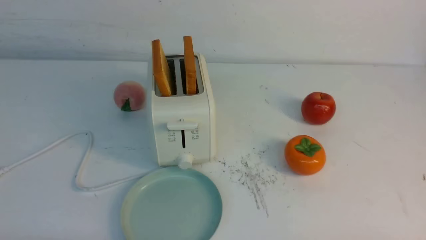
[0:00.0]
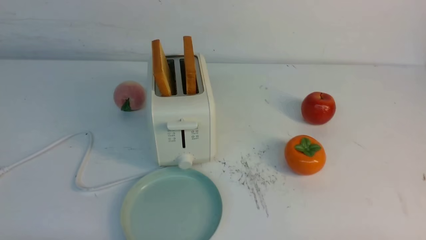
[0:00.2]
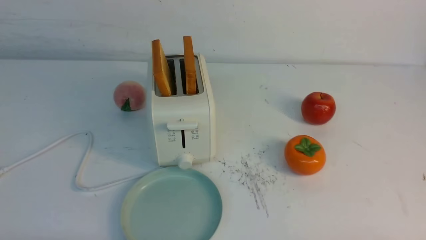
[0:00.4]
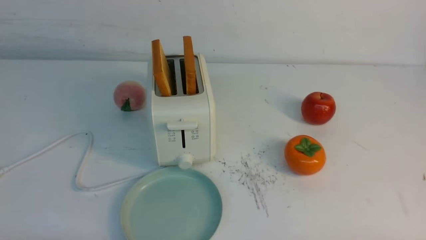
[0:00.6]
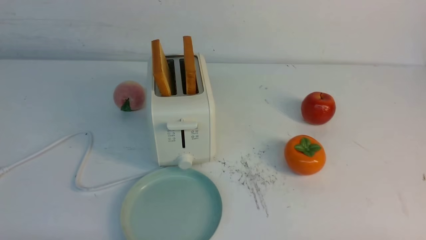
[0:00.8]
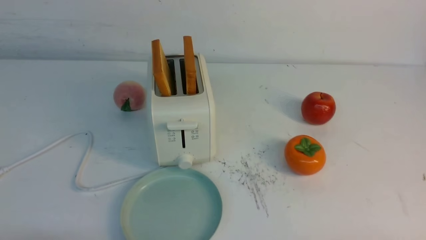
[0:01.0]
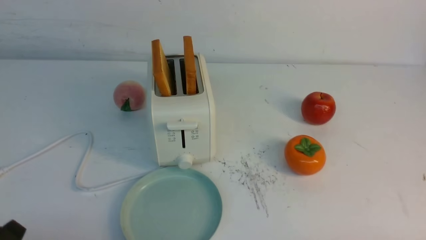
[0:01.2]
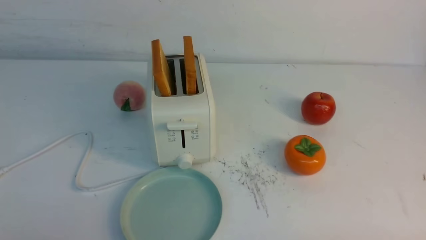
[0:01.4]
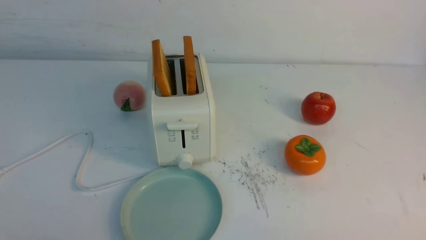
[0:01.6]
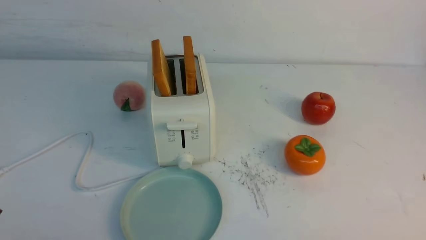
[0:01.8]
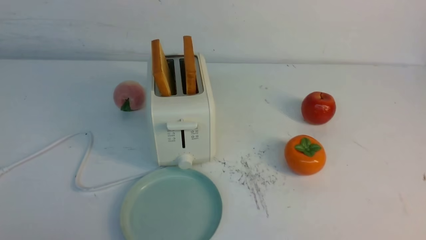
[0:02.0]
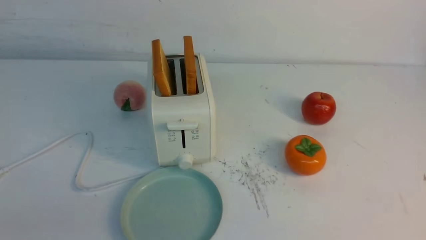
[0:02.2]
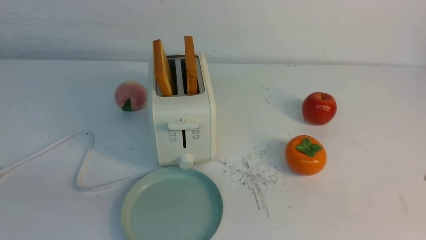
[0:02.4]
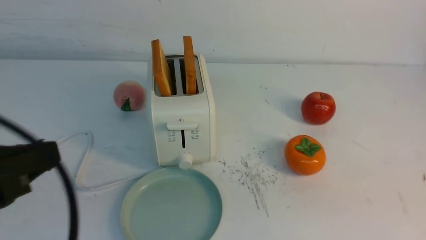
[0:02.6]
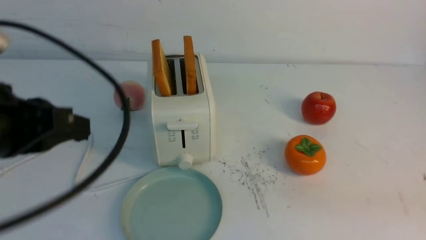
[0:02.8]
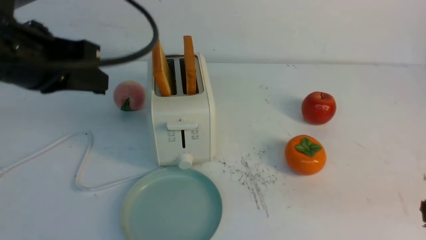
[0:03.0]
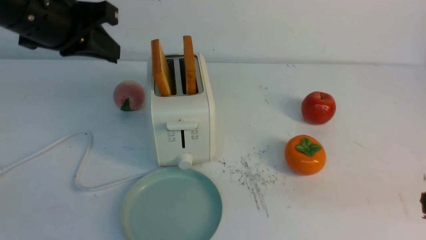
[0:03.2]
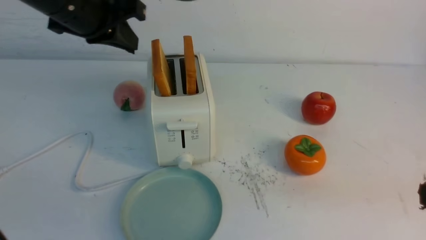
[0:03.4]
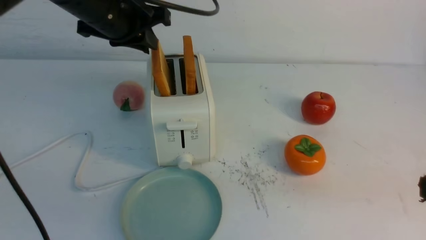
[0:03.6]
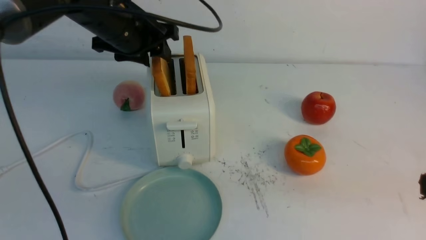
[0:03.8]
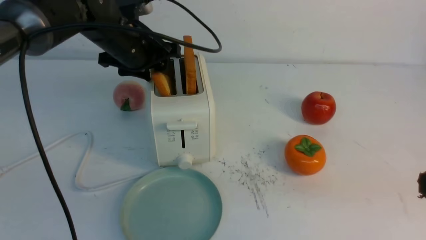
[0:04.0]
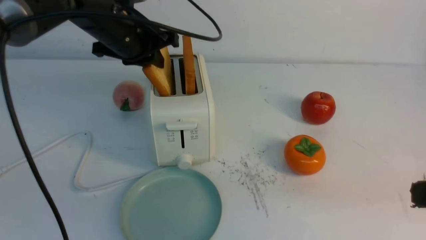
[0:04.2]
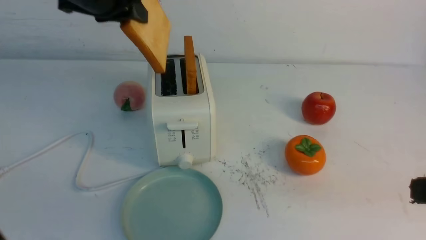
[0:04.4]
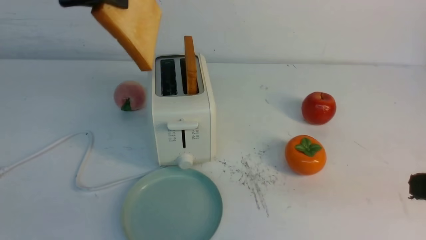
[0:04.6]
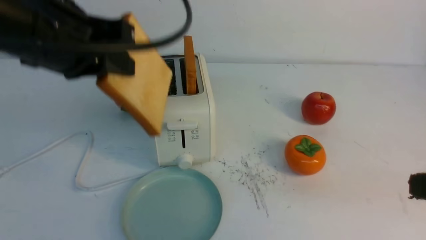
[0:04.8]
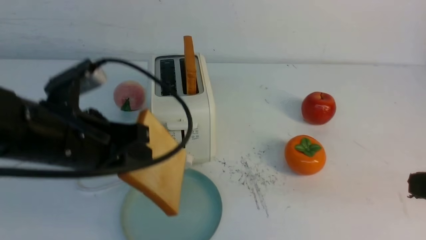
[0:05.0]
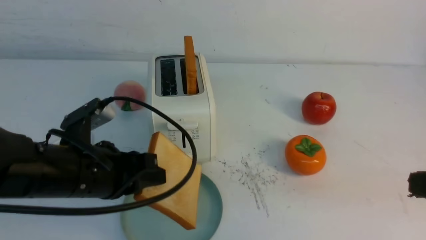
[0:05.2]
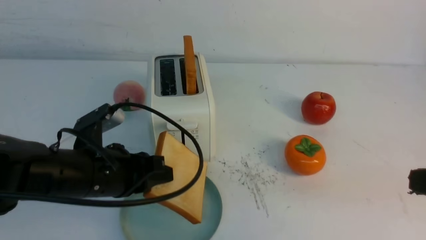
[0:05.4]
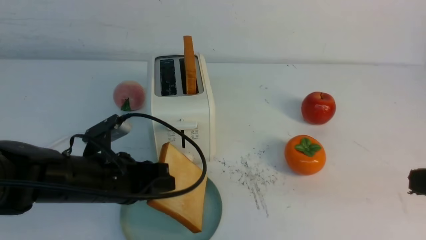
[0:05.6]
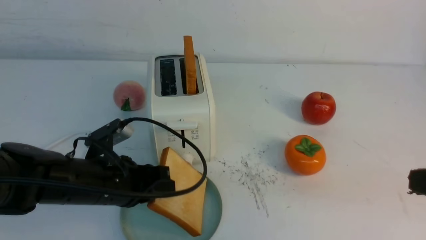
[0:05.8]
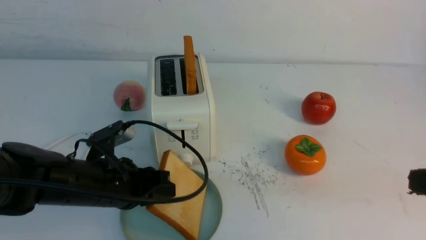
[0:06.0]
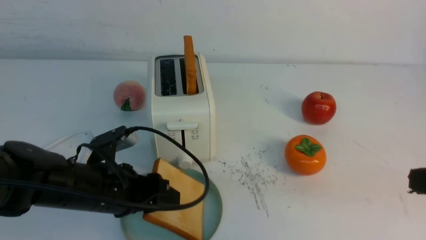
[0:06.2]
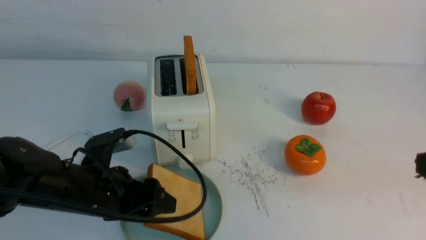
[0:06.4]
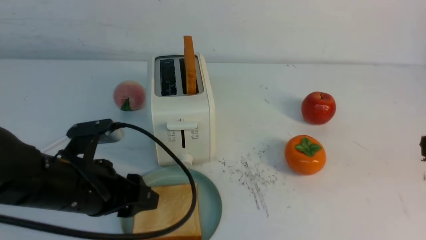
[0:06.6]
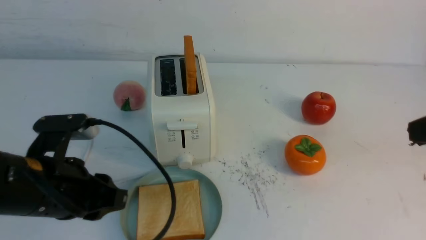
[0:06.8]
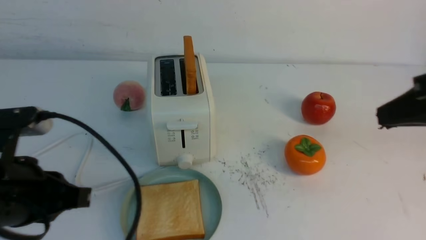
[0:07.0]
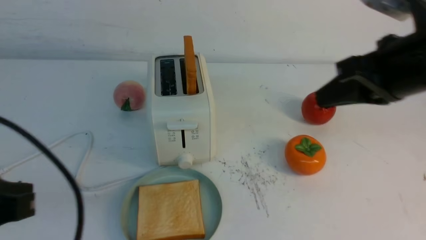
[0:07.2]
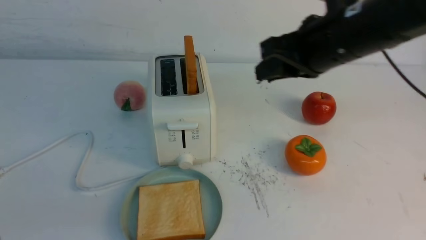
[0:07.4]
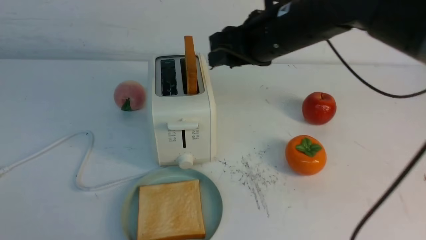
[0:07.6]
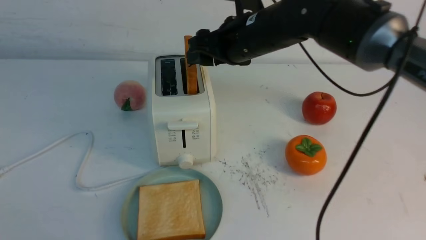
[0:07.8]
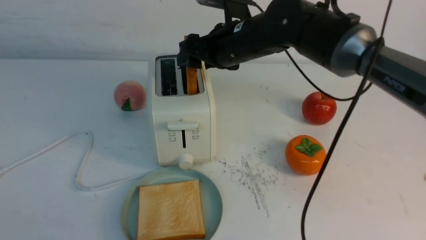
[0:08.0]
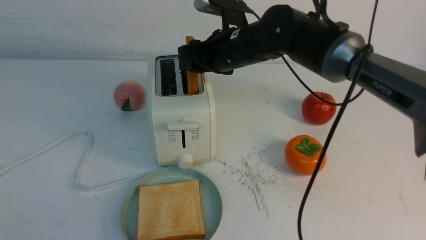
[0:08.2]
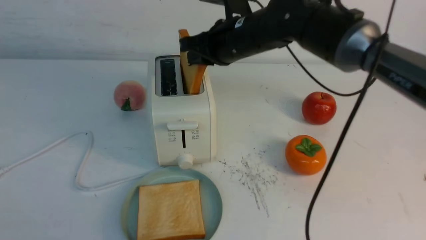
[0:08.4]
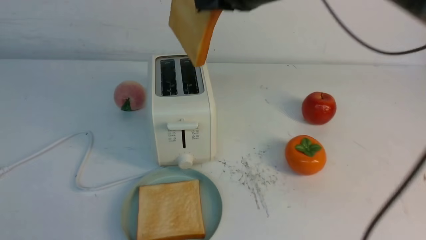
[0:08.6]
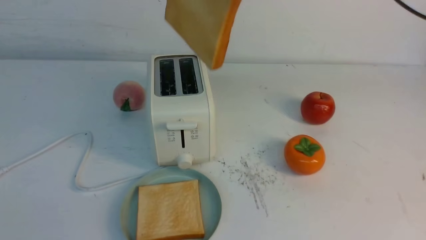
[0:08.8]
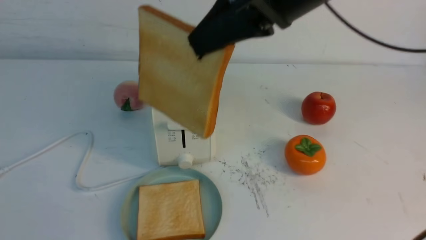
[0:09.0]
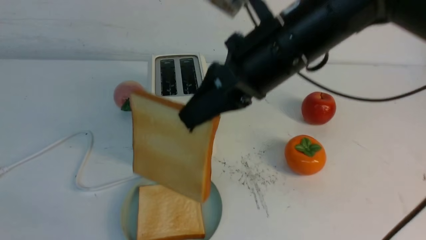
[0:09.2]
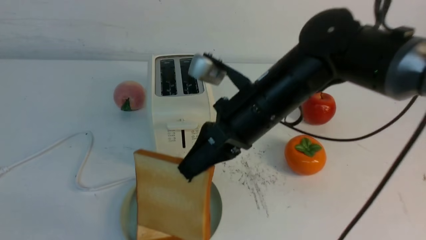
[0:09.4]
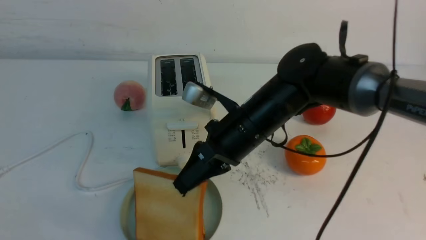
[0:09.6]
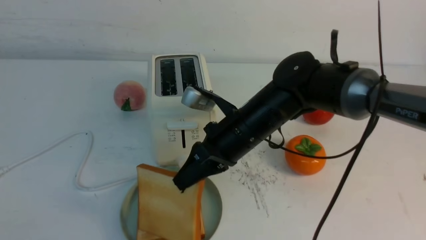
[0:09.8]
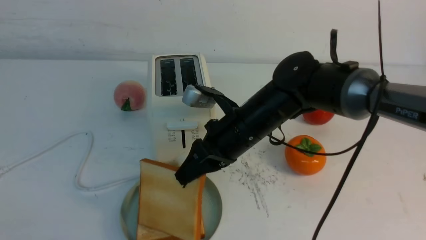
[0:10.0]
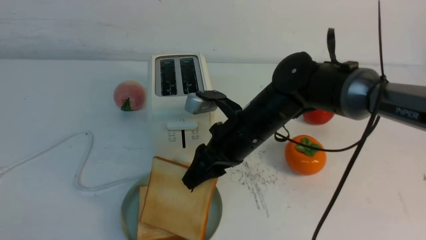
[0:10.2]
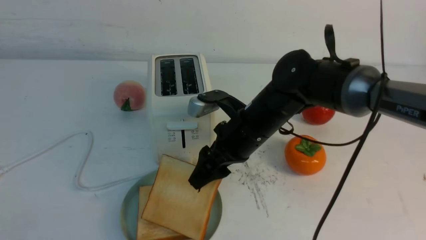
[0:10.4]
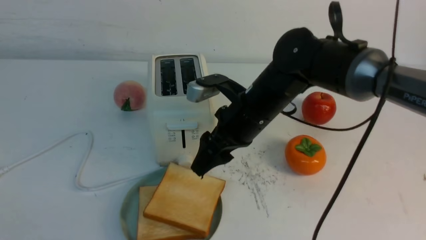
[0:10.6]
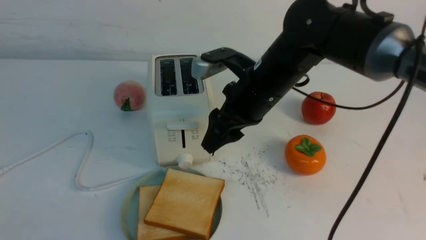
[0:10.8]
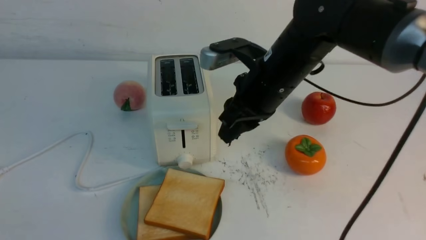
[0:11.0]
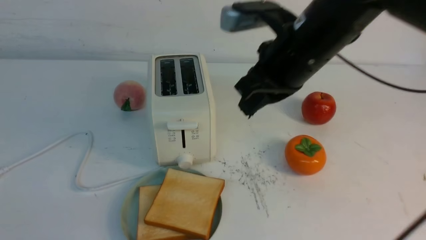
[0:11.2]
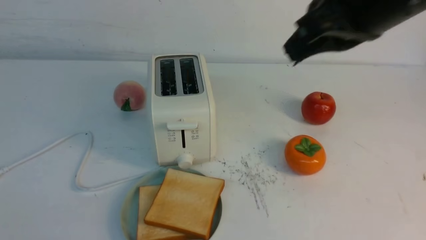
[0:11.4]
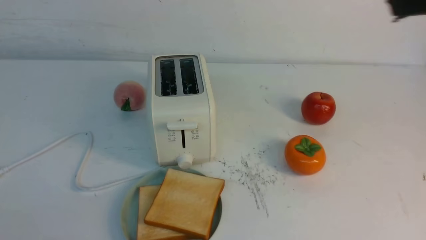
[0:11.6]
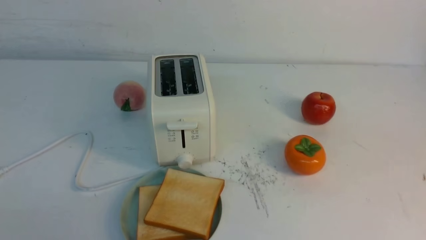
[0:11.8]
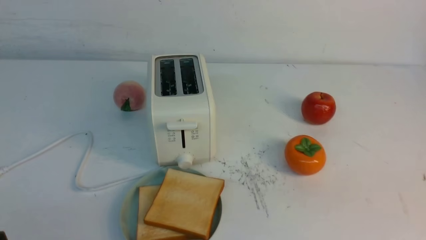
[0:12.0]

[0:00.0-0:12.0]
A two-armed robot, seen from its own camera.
Task of the whole recording: take toasted bread from bread machine on white table place on plate.
Step, 0:00.0 to 0:04.6: use the left arm to take out a slice of bread.
Step, 0:04.8 to 0:06.4: use the left arm to put a slice of bread into the empty plate.
Step, 0:06.6 to 0:08.4: use the right arm to take out a slice of bread.
Step, 0:08.6 to 0:10.6: use the right arm to put a slice of bread into the plate.
0:01.6 to 0:03.0: The left gripper heads forward and upward, covering roughly 30 cm.
0:03.0 to 0:04.4: The left gripper travels forward by approximately 10 cm, and opens and closes again.
0:04.4 to 0:06.0: The left gripper travels downward and backward by approximately 25 cm, and opens.
0:06.0 to 0:07.6: The left gripper goes roughly 30 cm backward, upward and to the left, and closes up. Meanwhile the right gripper moves forward and to the left, about 30 cm, and opens its fingers.
0:07.6 to 0:09.0: The right gripper heads backward and upward, covering approximately 10 cm, and closes.
0:09.0 to 0:10.4: The right gripper moves downward, about 20 cm, and opens up.
0:10.4 to 0:12.0: The left gripper changes place by approximately 5 cm. The right gripper travels backward and to the right by some 40 cm, and closes up.

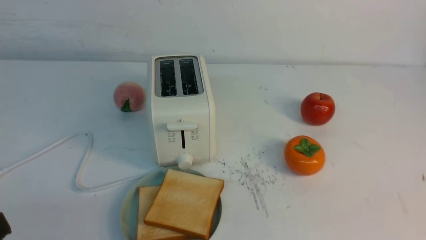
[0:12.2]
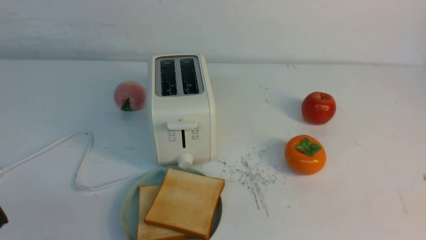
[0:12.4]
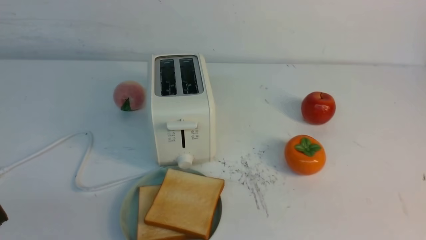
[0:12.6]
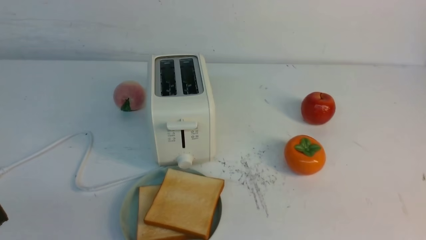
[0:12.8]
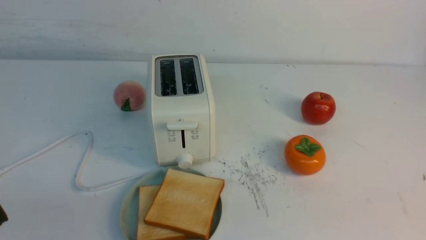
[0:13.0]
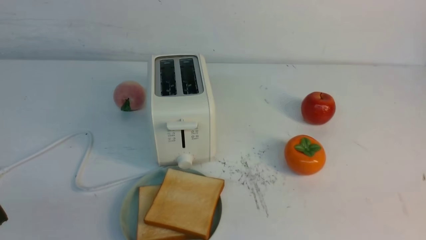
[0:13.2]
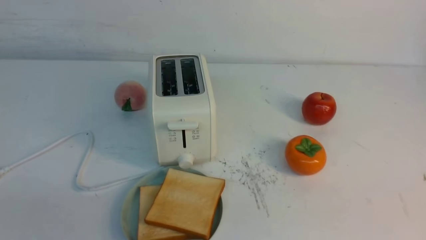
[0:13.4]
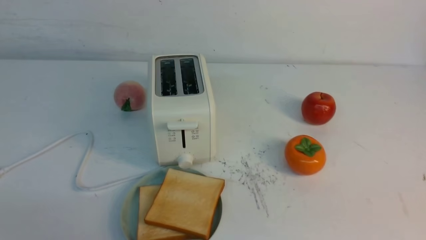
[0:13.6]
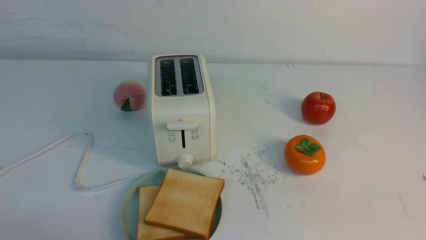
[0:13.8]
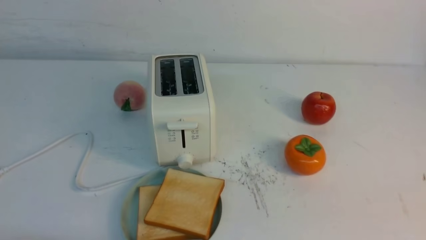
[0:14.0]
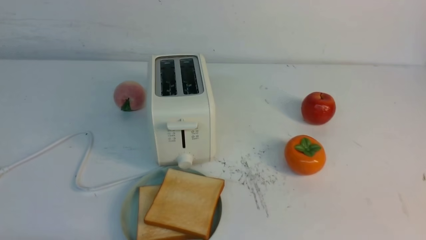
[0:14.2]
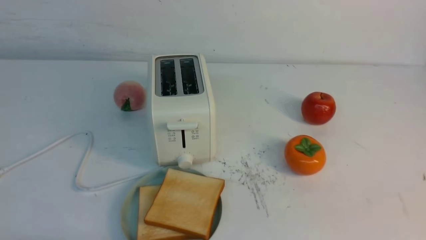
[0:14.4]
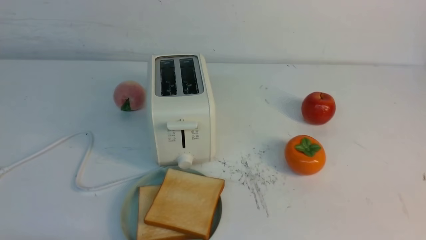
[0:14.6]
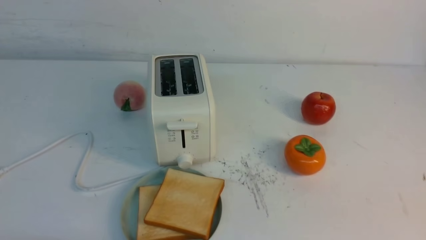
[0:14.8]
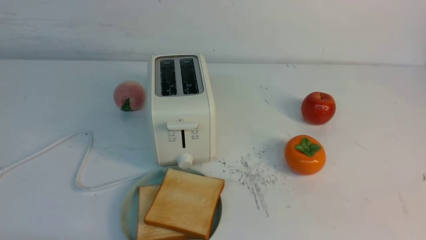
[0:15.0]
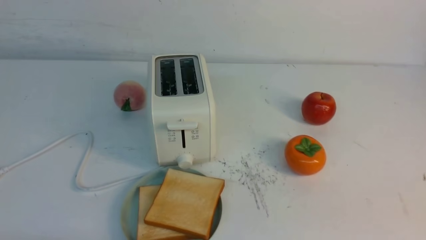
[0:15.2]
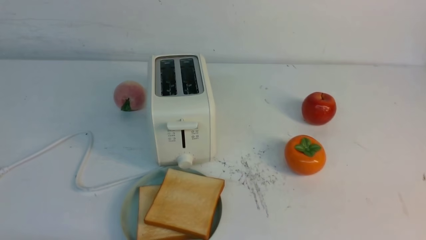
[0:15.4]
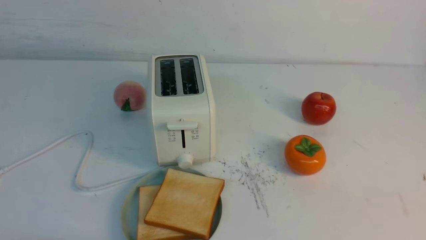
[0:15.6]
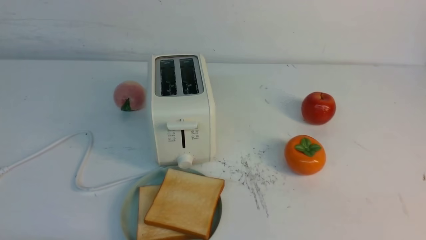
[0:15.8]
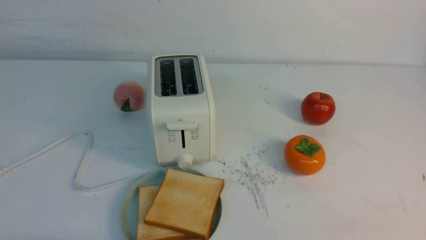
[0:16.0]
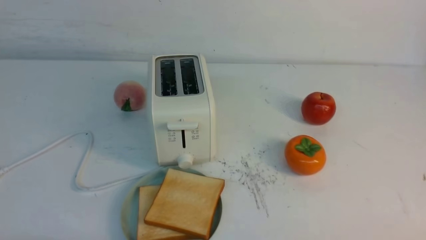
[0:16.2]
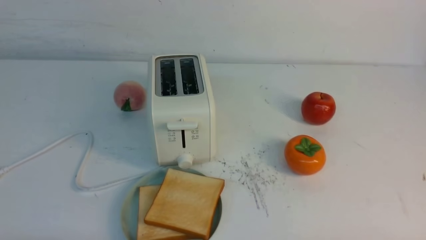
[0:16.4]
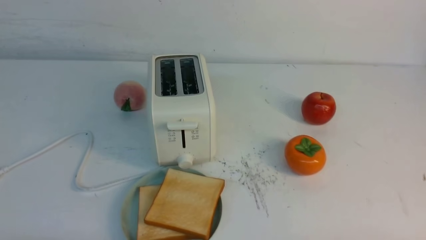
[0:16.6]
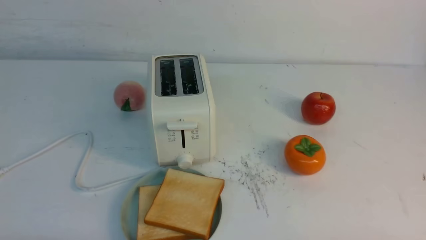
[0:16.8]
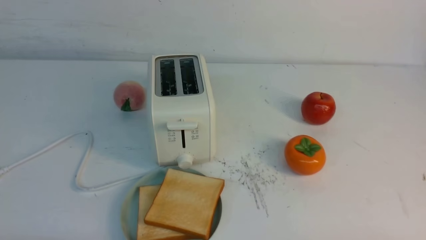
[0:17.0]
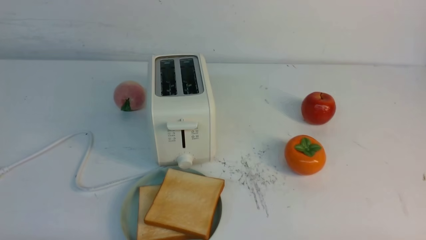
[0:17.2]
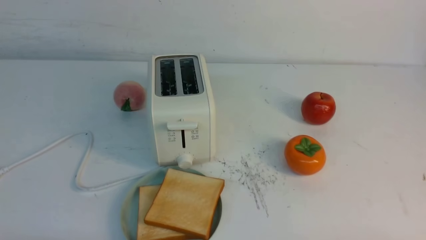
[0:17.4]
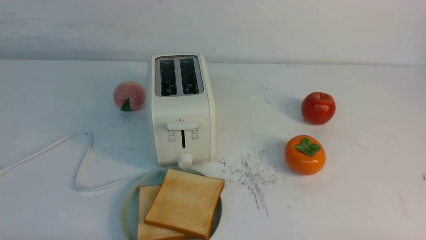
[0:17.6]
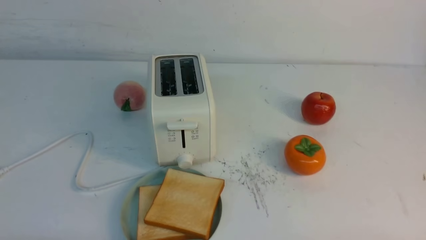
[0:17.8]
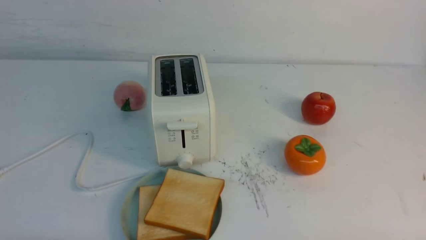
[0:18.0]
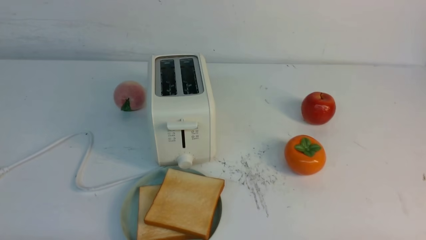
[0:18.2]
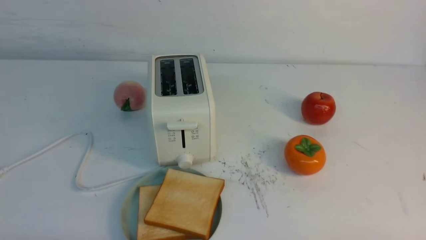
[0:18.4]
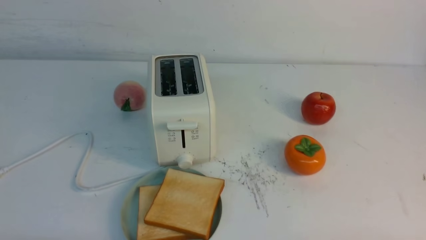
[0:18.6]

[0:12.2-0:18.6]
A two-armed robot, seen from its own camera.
Task of the whole recording: take toasted bread from bread machine on white table place on plate.
0:17.0 to 0:18.6: Both grippers stay put.
